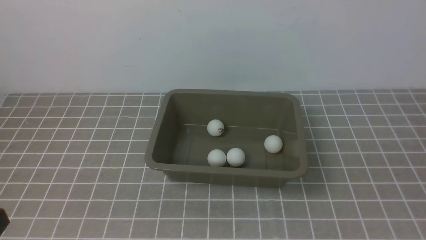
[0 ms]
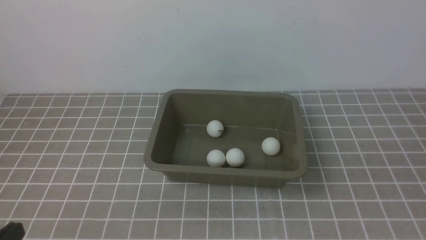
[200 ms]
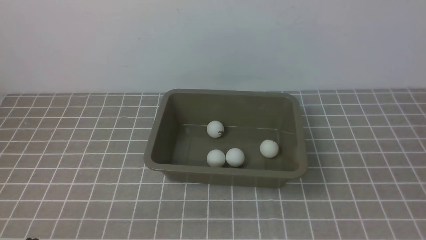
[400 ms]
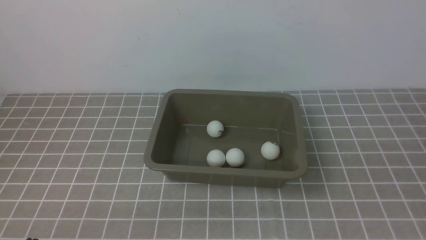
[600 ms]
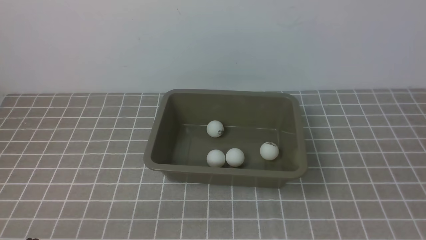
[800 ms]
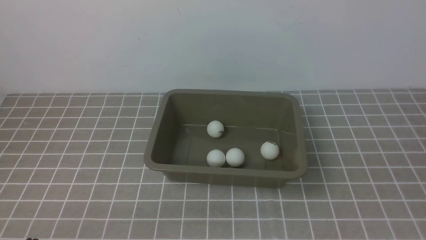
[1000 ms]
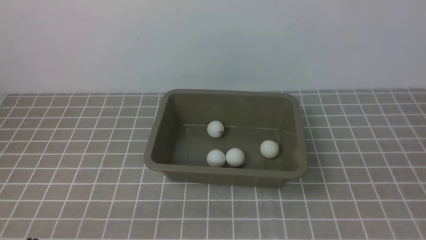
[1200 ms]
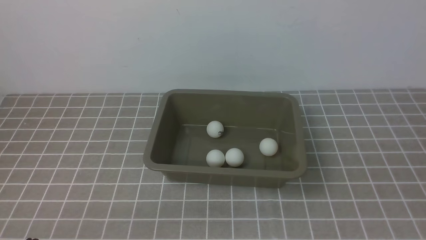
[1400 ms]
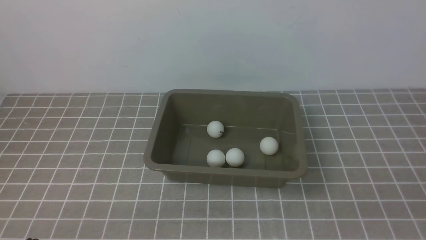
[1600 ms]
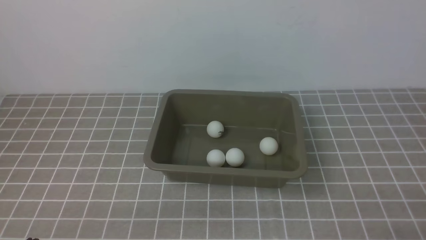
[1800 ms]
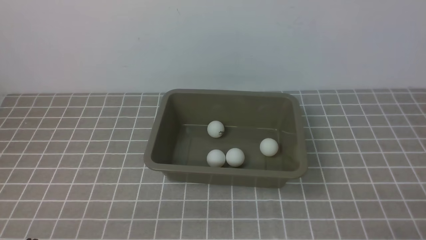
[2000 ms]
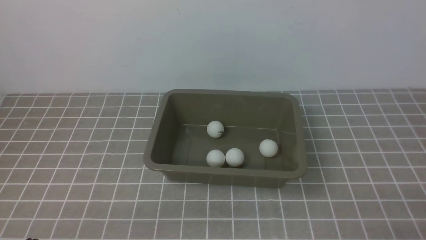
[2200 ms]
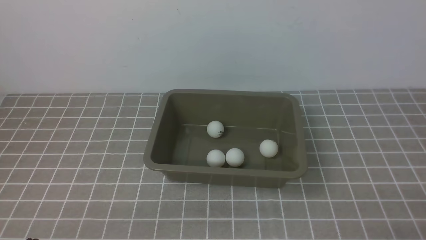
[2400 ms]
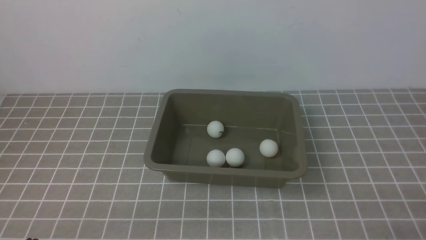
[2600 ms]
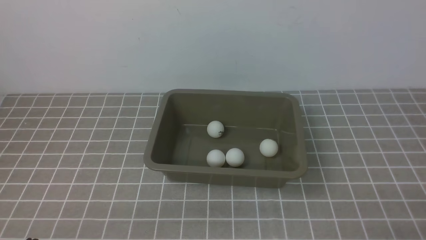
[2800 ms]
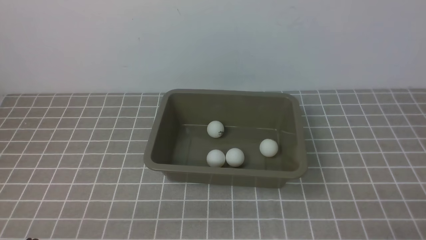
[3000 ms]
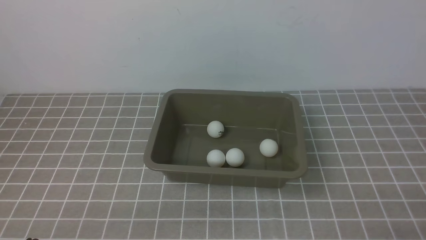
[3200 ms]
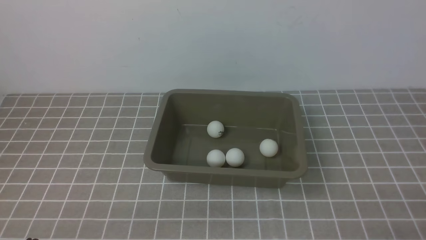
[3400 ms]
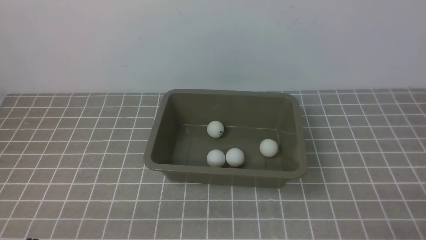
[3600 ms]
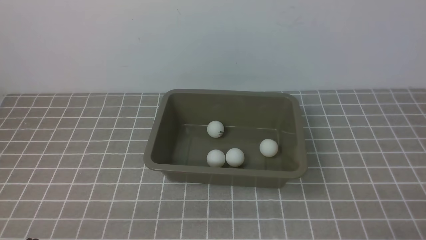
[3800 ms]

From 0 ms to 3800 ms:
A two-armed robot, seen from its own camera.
From 2600 ms to 3800 ms: Both grippers stay about where they are.

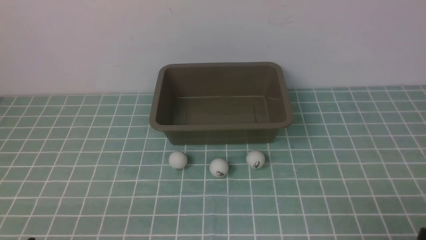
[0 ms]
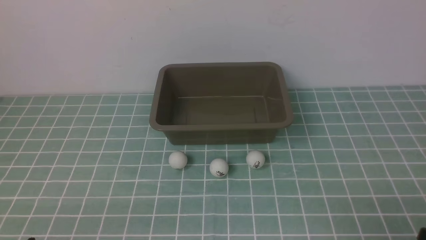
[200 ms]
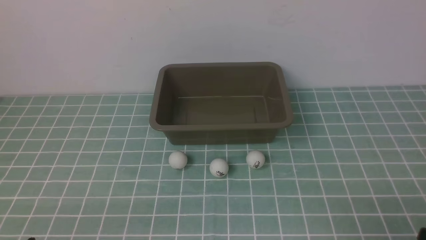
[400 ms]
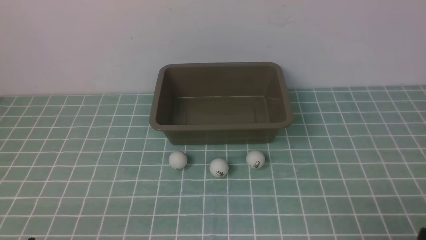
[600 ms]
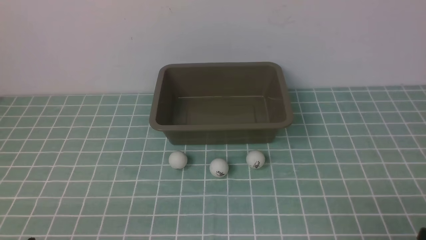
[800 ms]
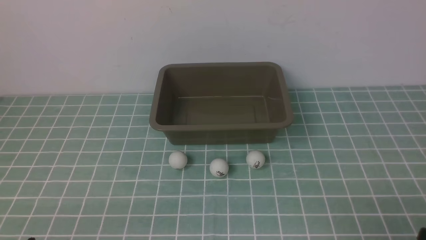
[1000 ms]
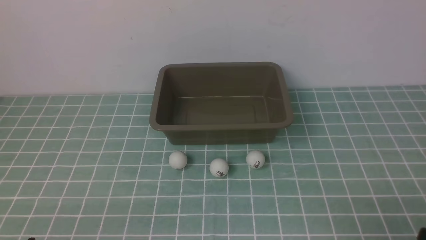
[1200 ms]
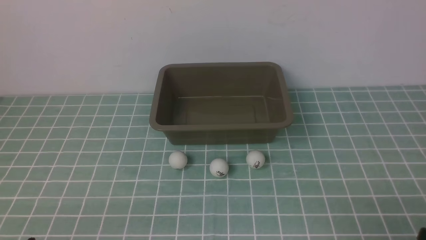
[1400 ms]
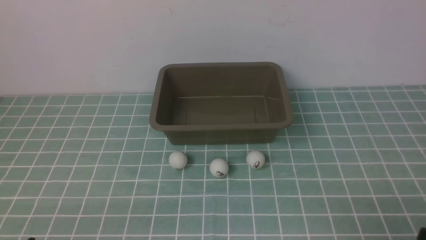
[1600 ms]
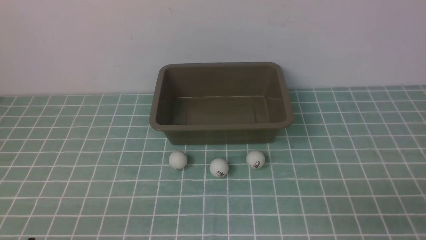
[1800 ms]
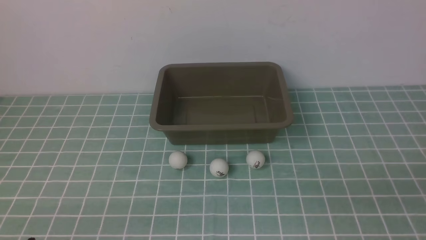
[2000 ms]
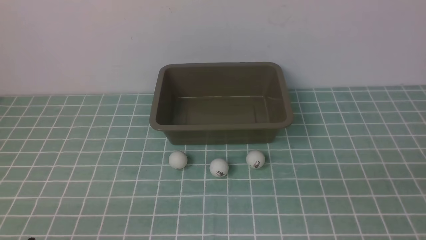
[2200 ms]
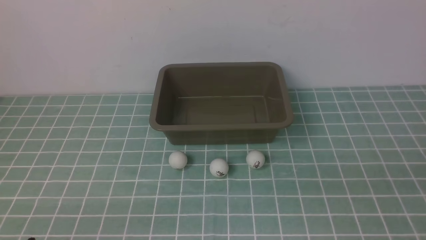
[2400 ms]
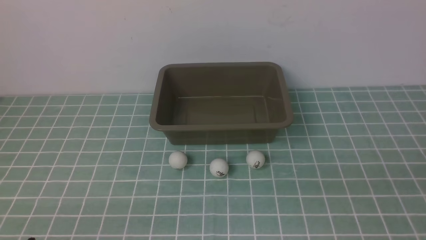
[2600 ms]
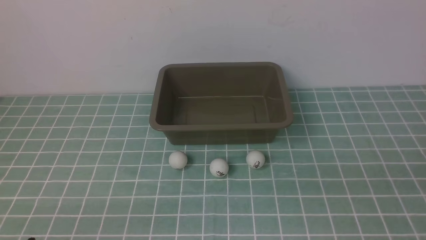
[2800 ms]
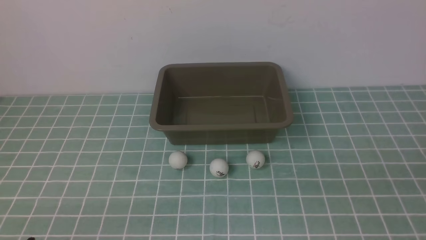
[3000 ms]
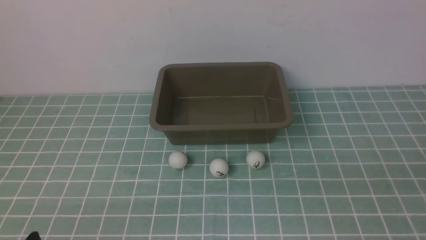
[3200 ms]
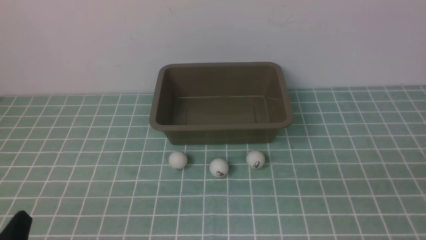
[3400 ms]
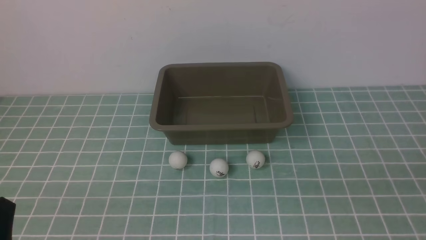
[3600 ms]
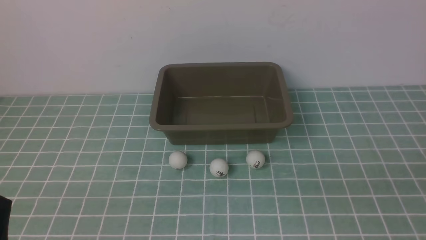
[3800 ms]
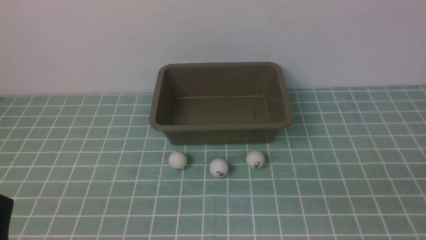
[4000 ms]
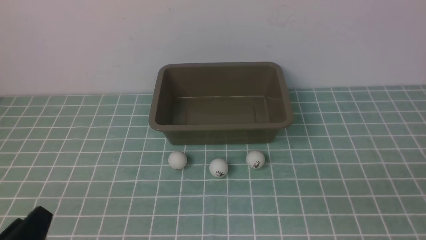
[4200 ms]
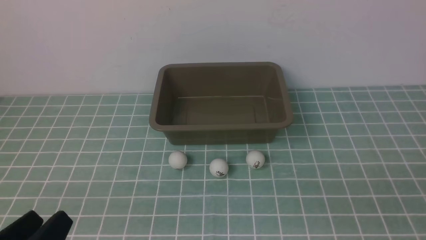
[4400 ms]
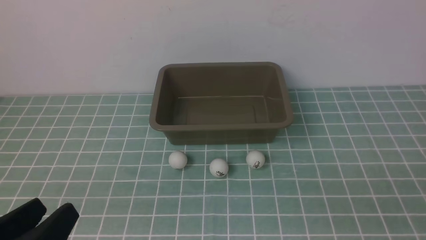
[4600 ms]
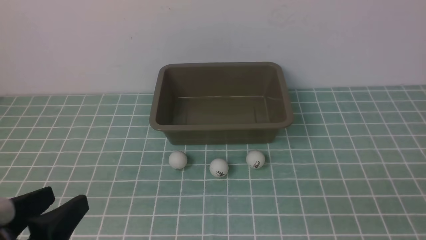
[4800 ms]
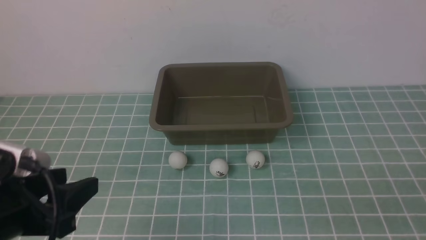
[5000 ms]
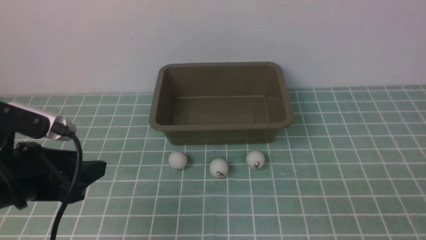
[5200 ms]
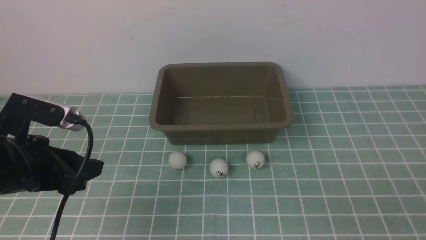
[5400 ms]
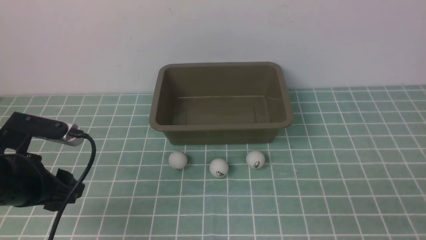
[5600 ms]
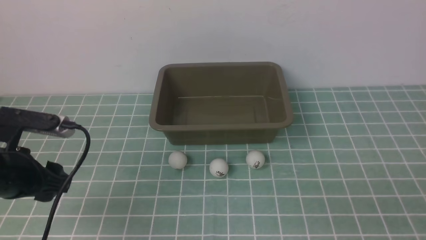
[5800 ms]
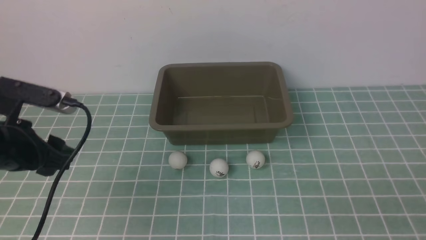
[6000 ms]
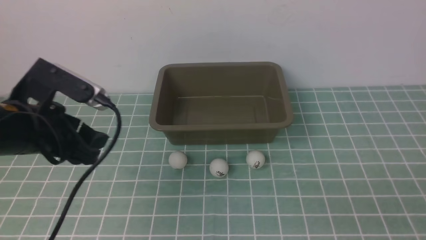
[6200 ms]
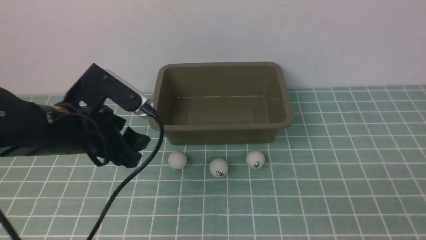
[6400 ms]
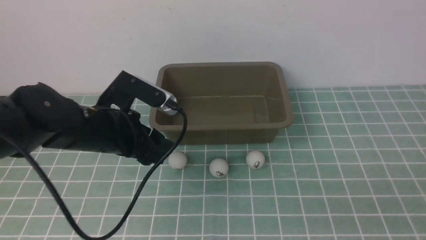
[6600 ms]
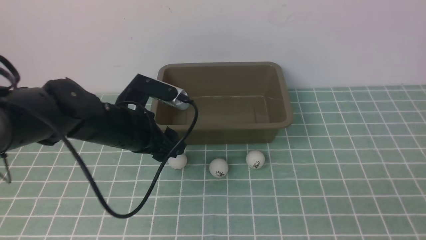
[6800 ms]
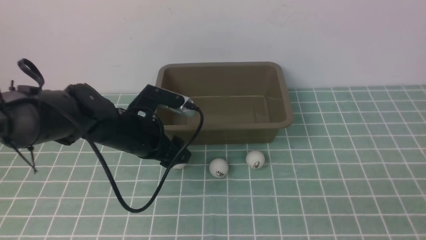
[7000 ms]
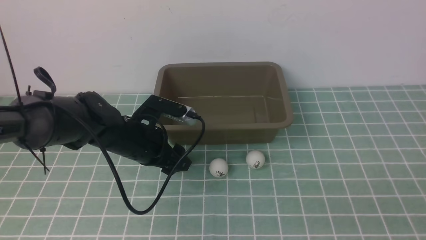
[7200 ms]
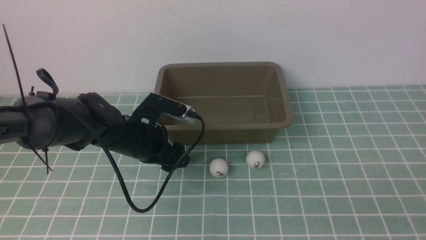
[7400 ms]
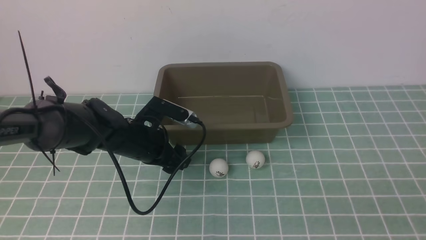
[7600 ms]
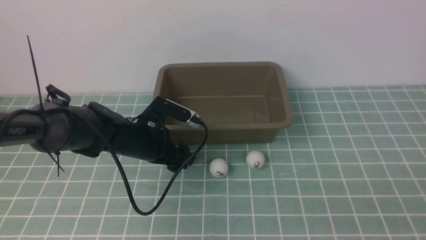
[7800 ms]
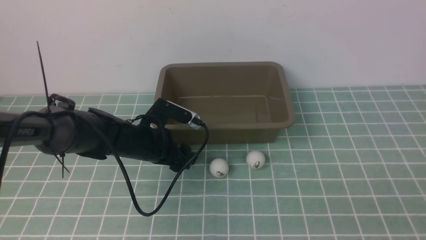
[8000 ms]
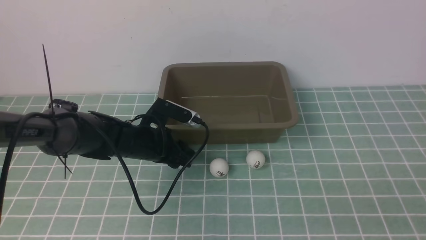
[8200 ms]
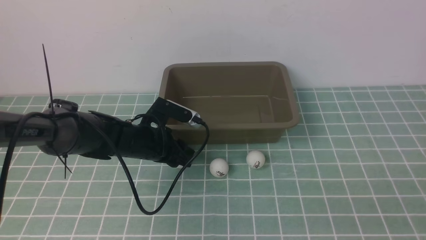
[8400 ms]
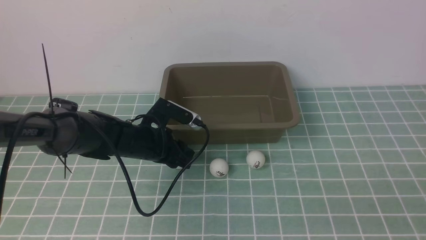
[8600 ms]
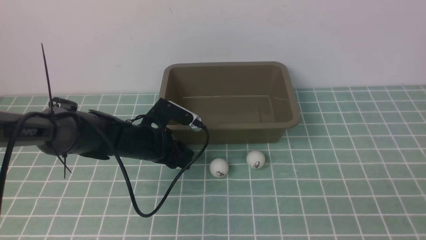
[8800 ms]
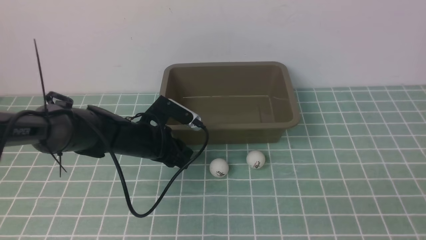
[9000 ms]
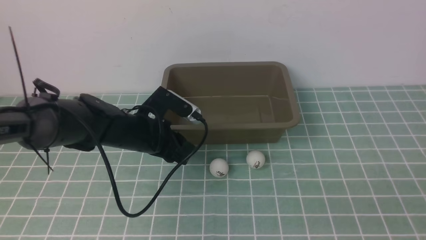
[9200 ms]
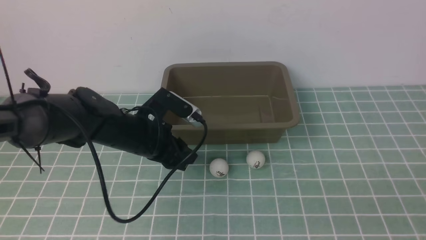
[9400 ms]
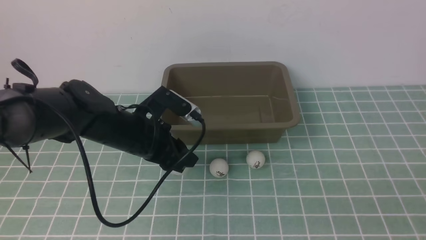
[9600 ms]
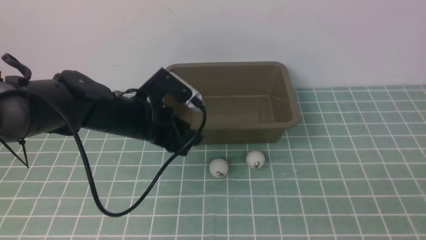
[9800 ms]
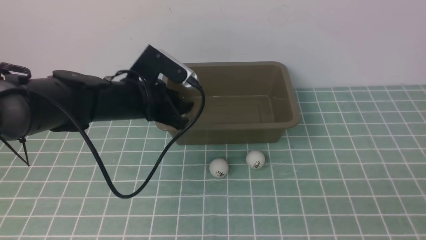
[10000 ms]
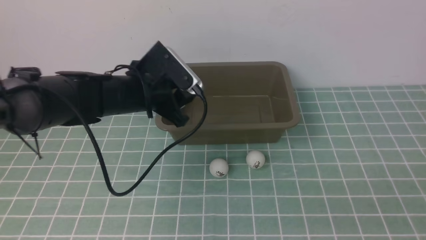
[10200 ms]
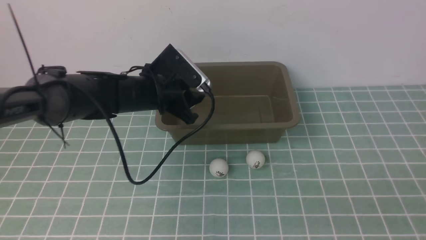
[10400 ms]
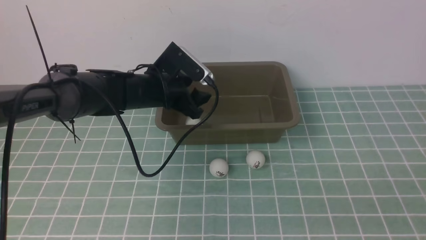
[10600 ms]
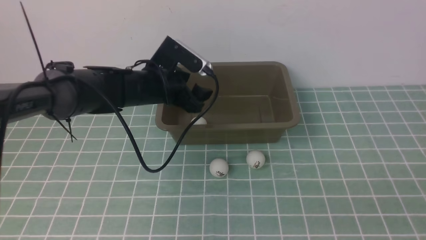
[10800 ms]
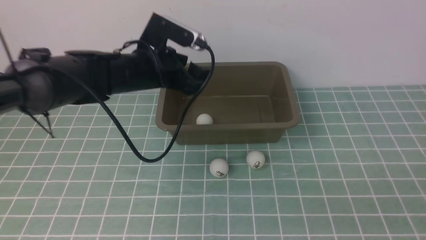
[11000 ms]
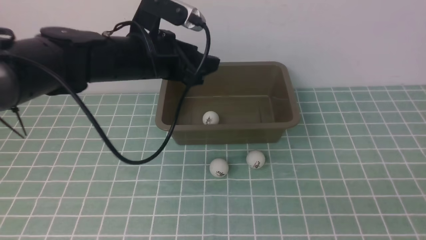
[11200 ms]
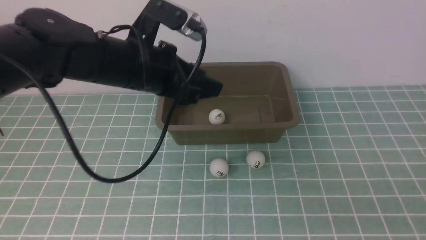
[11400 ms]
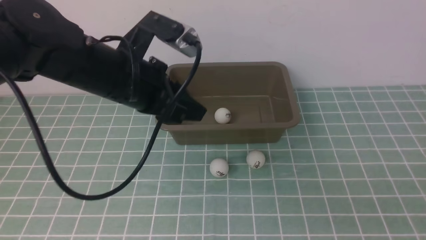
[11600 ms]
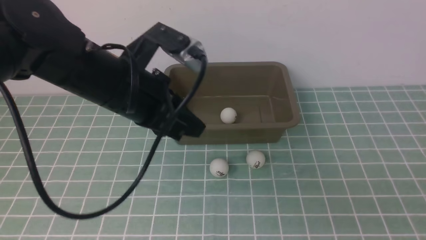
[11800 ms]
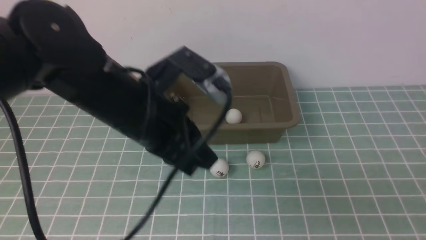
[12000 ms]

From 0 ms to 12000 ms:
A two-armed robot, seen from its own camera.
Step, from 0 ms to 9200 ms: use the left arm to clamp the table tennis ball closest to it.
Step, from 9400 ms to 10800 ms: use the left arm to put the table tennis ball into the box.
From 3000 ms to 4400 ms: The left gripper is displaced upward by some 5 cm.
From 4400 ms to 6000 ms: The left gripper is displaced forward by about 20 cm.
From 6000 ms to 7600 ms: The left gripper shifts some 20 cm downward, forward and to the right.
From 7600 ms to 9000 ms: The left gripper closes up.
From 9000 ms to 10400 ms: The left gripper goes roughly 10 cm upward.
From 10400 ms to 12000 ms: The left gripper is displaced backward and upward by approximately 15 cm, and closes.

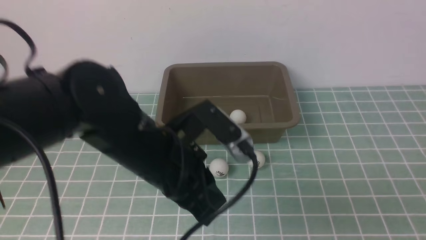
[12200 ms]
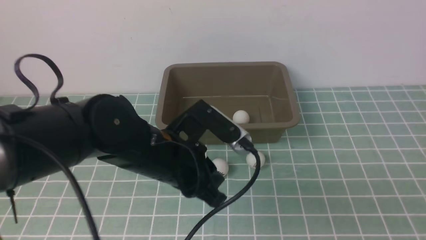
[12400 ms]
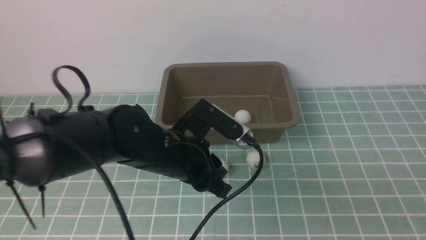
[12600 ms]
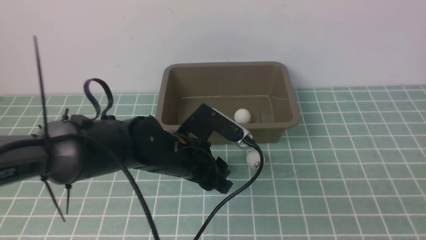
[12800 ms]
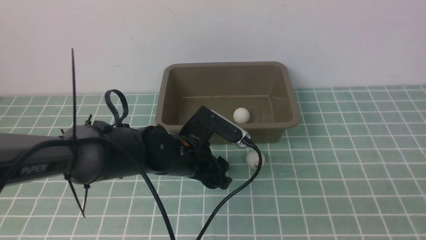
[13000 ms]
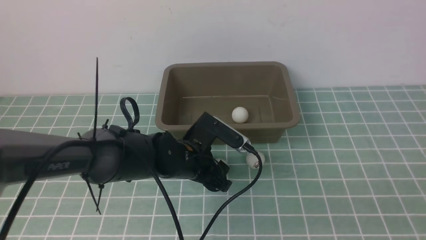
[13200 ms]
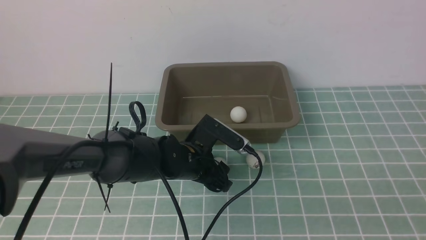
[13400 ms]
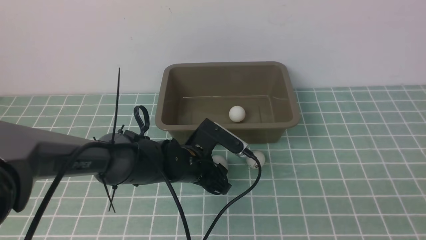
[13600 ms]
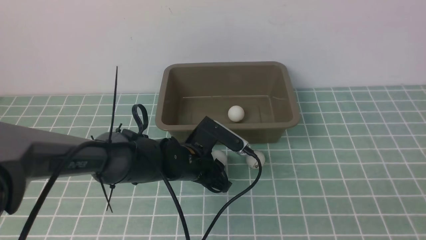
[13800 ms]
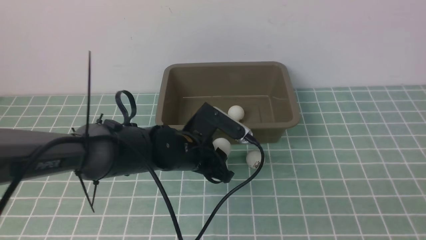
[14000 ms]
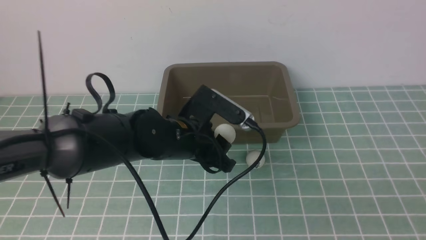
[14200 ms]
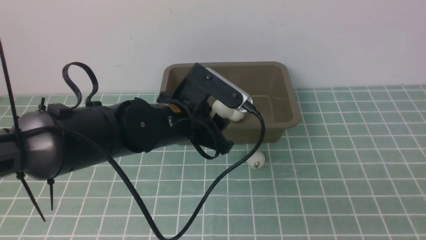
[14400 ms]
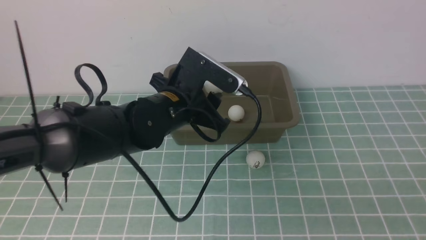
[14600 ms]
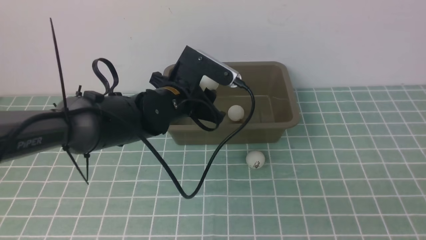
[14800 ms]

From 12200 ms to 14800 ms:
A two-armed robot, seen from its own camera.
Step, from 12200 ms to 14200 ms: use the left arm to clamp the table tennis ball closest to it.
From 12200 ms to 13400 ms: The left gripper moves downward and forward, approximately 15 cm, and opens.
From 13400 ms to 14800 ms: The left gripper shifts some 10 cm upward, and closes.
